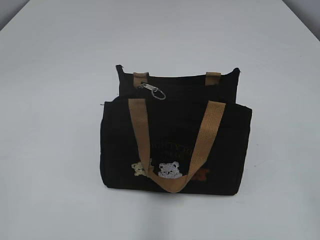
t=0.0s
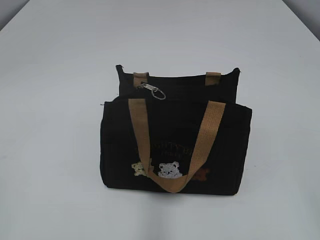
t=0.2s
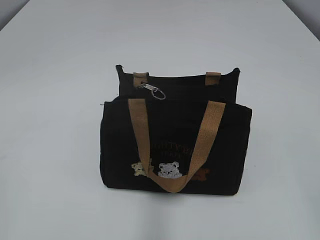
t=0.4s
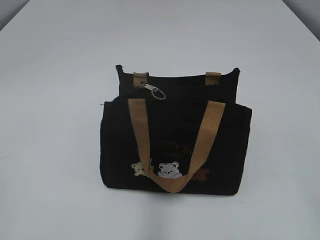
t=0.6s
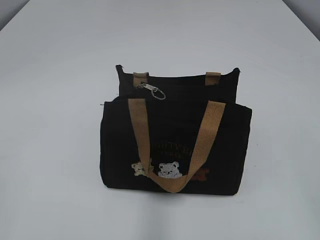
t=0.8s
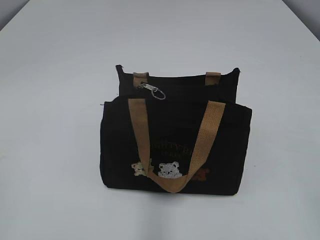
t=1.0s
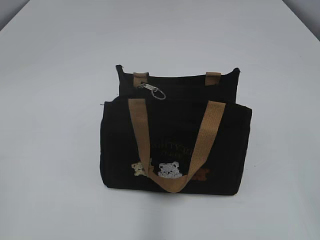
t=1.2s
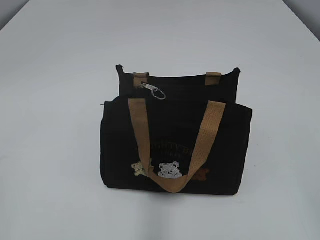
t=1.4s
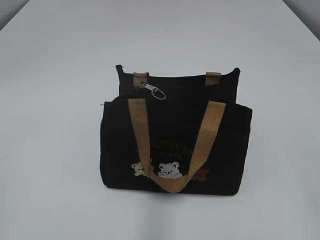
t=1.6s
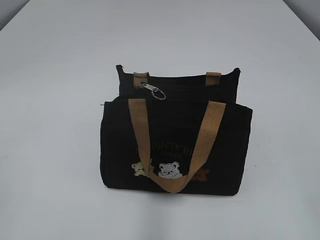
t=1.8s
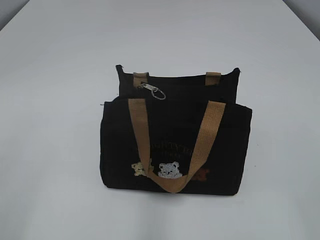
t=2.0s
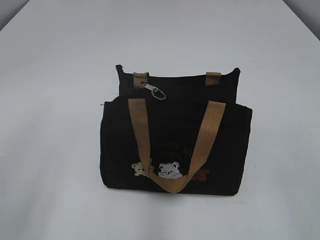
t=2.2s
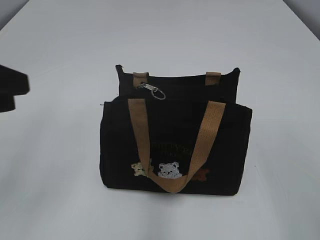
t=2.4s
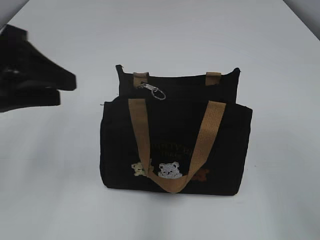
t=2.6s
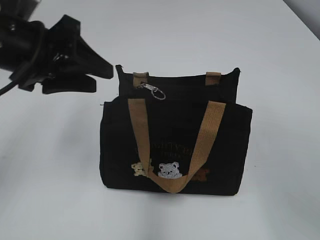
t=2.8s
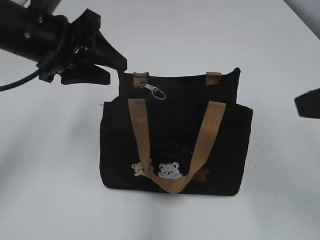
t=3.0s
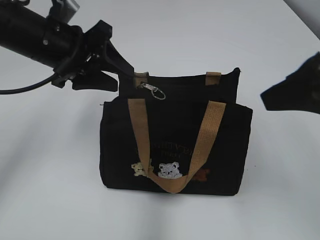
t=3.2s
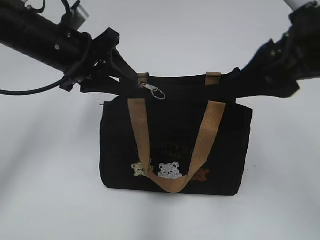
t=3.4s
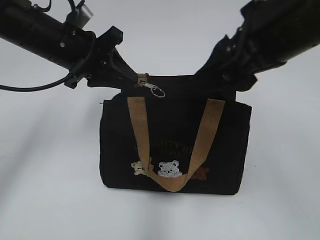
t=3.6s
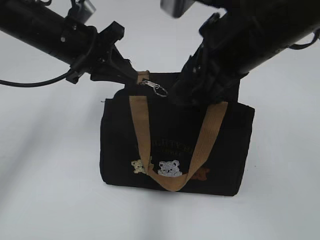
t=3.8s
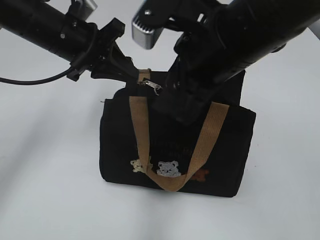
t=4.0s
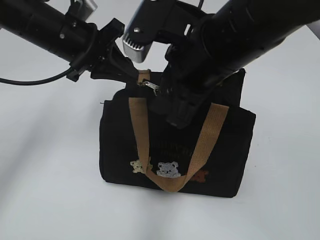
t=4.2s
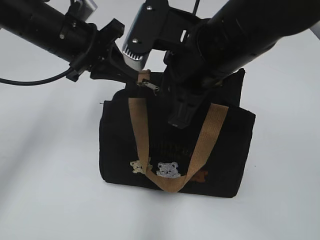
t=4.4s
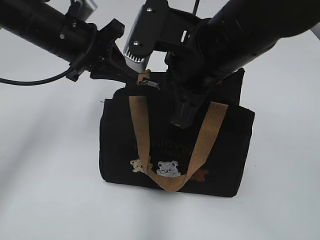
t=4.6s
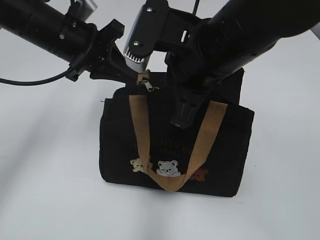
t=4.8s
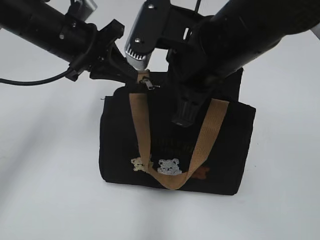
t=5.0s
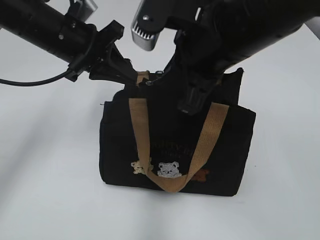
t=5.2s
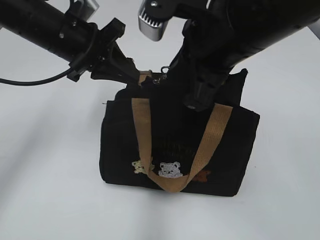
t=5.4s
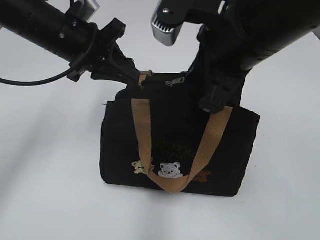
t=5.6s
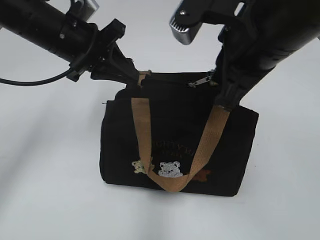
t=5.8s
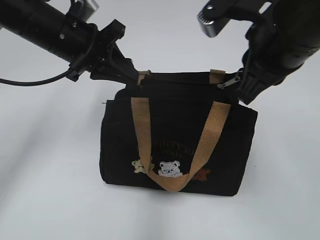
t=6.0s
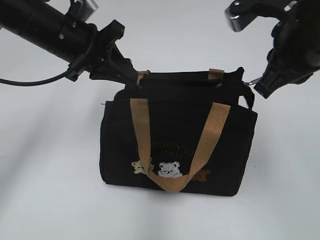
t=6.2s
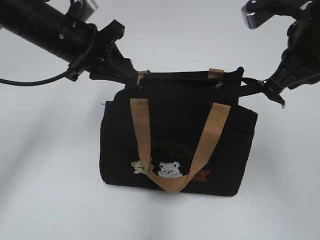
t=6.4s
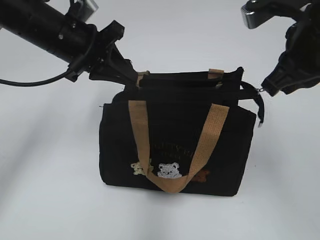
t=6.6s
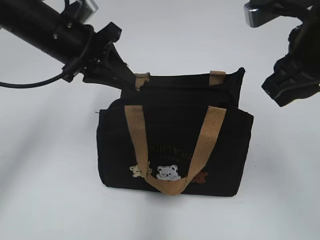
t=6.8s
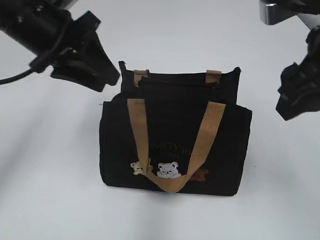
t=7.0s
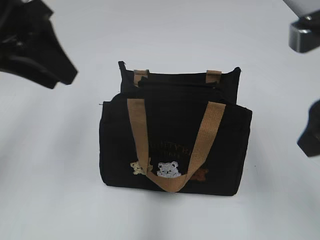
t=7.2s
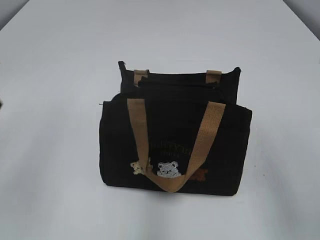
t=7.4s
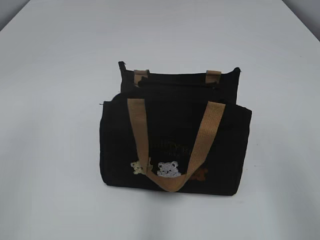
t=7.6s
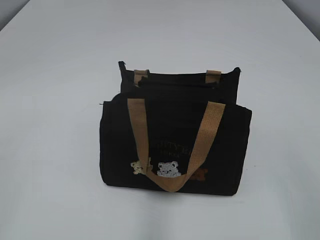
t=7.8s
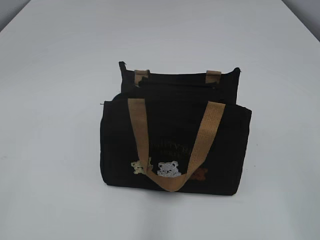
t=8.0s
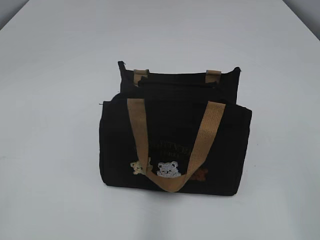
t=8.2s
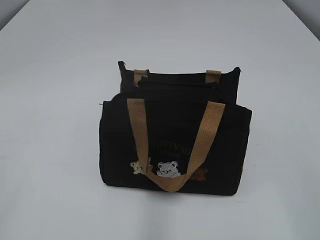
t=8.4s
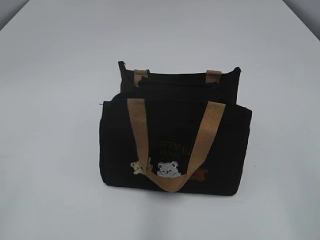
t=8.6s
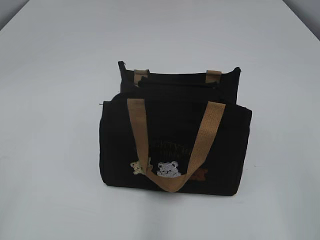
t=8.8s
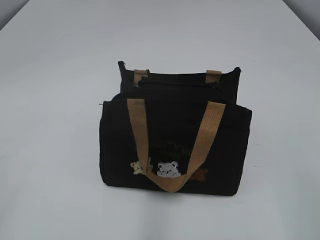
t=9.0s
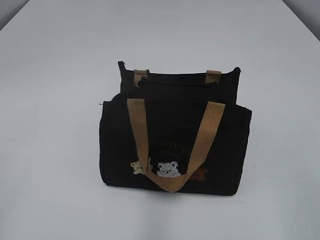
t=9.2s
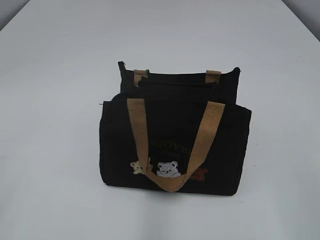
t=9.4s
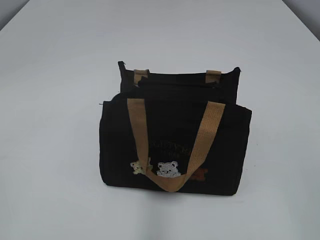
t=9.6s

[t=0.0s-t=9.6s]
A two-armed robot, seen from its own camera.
Step, t=0.0s to t=6.8s: Pull open the zipper with your right hand.
t=1.6s to t=3.2s: The right gripper goes some 20 cm forward. The left gripper heads forward and to the right, covering some 35 cm, and opens.
t=3.2s to t=4.8s: The right gripper is displaced to the left and forward by approximately 15 cm, and closes. The left gripper closes up.
t=4.8s to t=6.4s: The right gripper travels to the right by approximately 10 cm.
t=6.4s to t=8.0s: The left gripper heads backward and to the left, covering approximately 40 cm, and opens. Meanwhile the right gripper shifts some 25 cm backward, and opens its fingers.

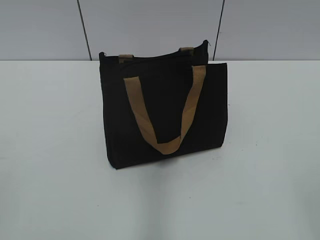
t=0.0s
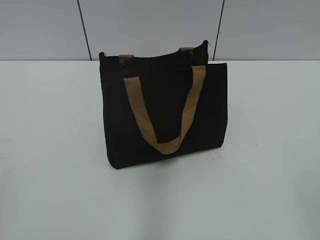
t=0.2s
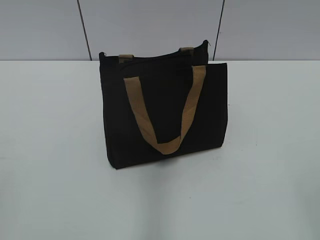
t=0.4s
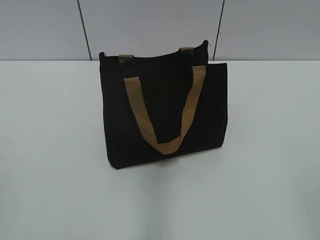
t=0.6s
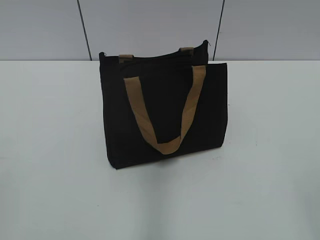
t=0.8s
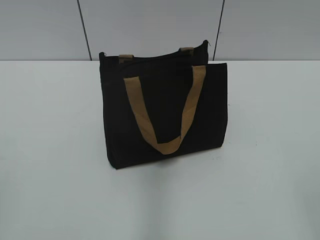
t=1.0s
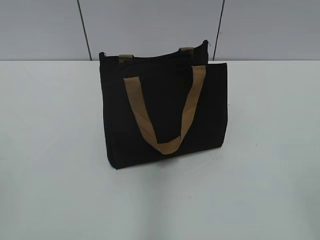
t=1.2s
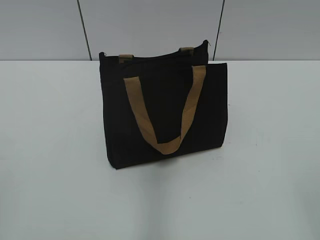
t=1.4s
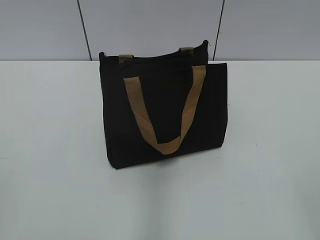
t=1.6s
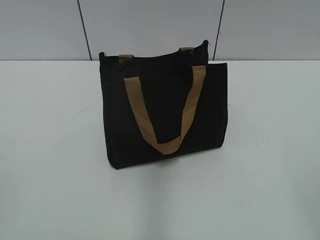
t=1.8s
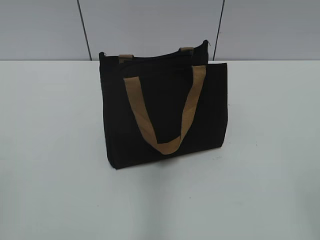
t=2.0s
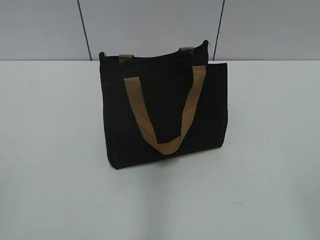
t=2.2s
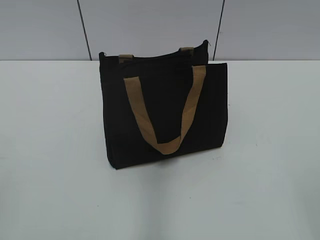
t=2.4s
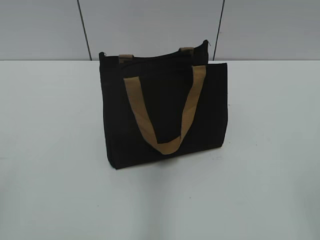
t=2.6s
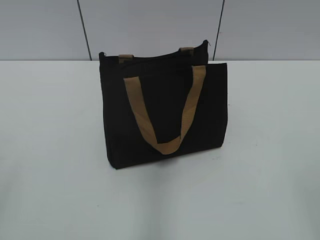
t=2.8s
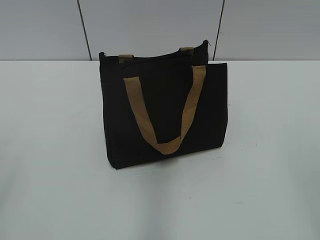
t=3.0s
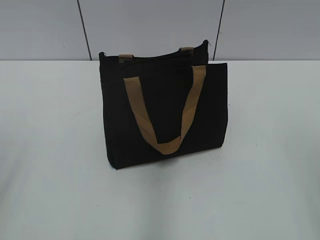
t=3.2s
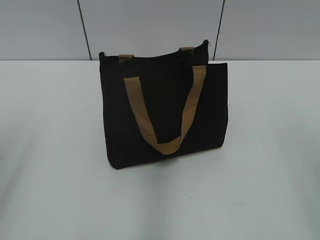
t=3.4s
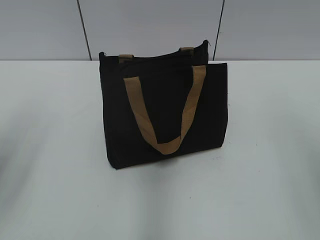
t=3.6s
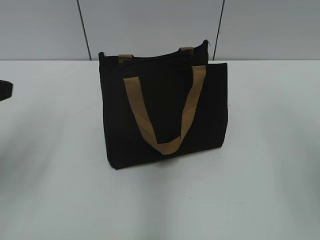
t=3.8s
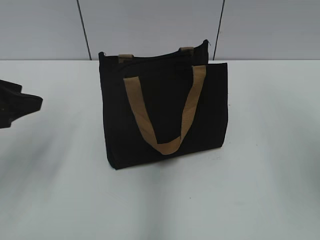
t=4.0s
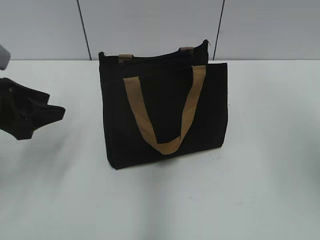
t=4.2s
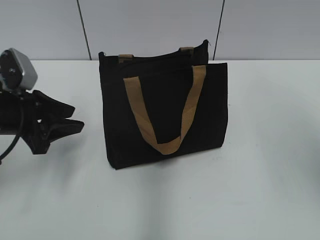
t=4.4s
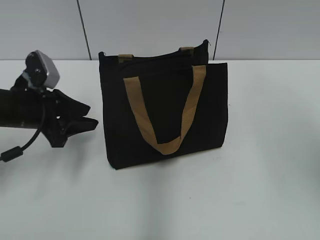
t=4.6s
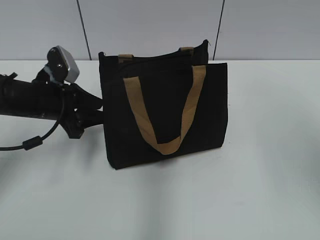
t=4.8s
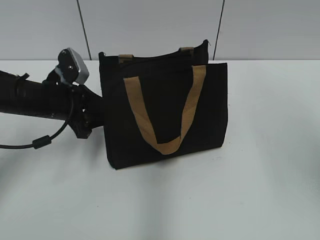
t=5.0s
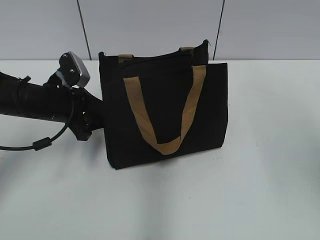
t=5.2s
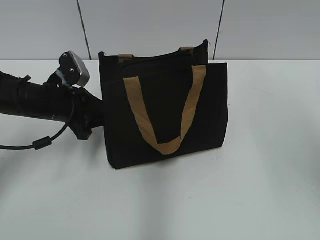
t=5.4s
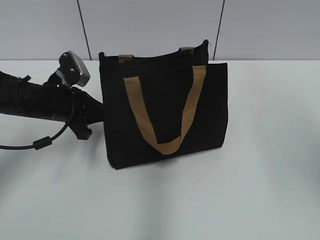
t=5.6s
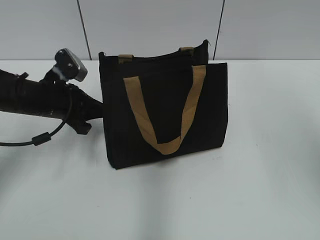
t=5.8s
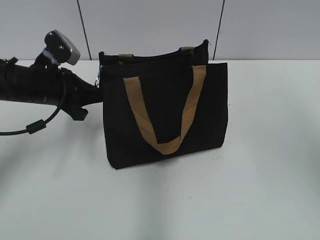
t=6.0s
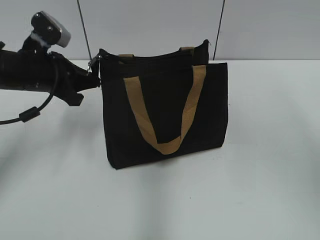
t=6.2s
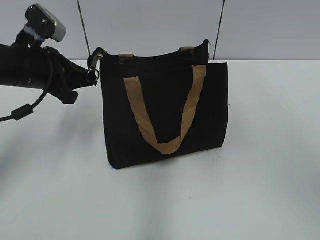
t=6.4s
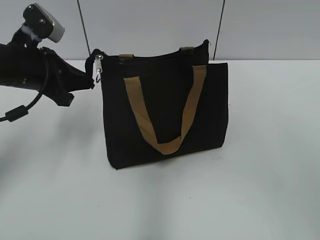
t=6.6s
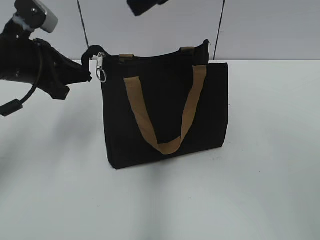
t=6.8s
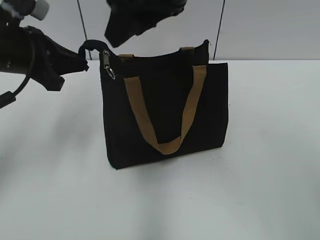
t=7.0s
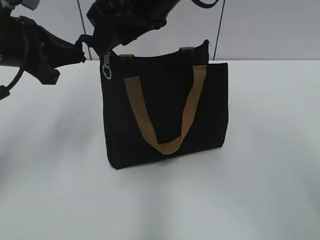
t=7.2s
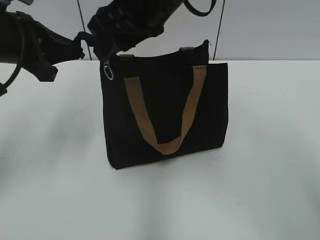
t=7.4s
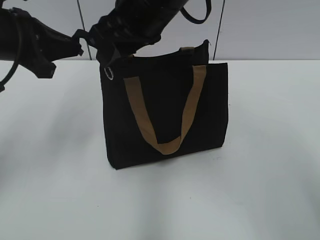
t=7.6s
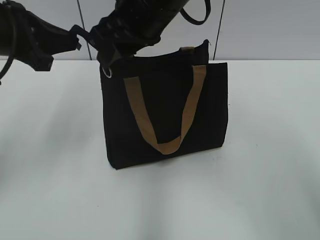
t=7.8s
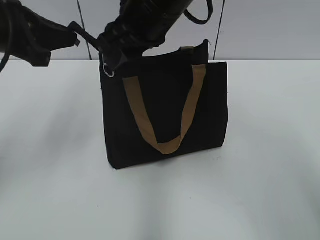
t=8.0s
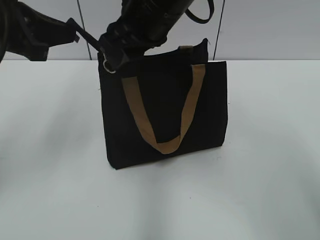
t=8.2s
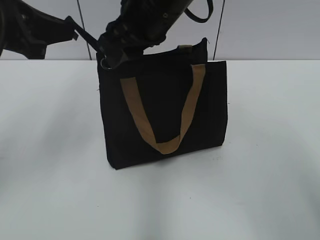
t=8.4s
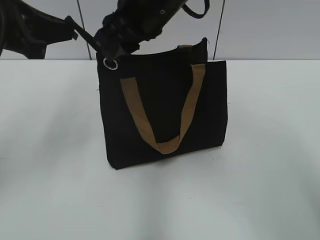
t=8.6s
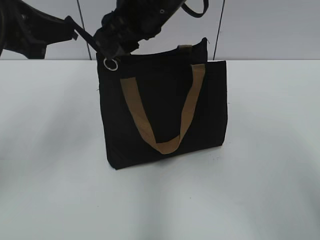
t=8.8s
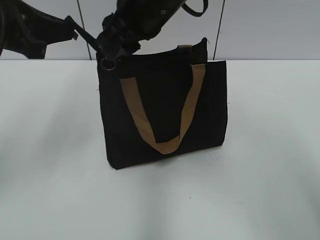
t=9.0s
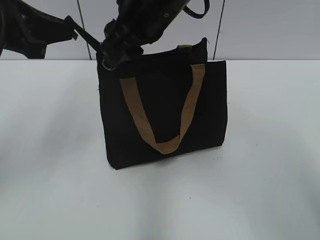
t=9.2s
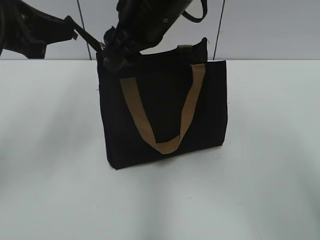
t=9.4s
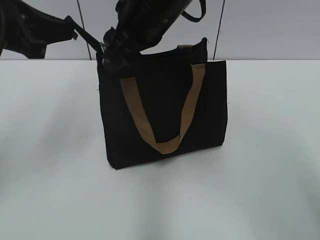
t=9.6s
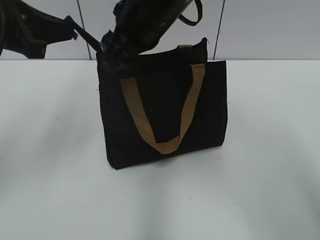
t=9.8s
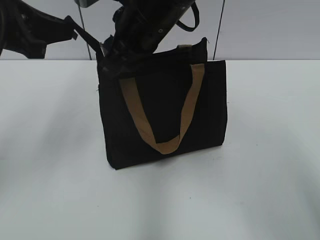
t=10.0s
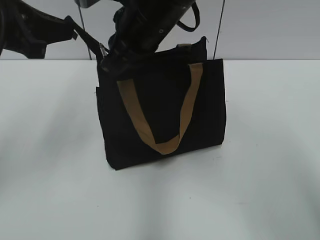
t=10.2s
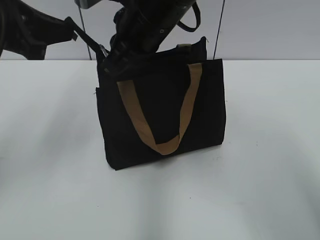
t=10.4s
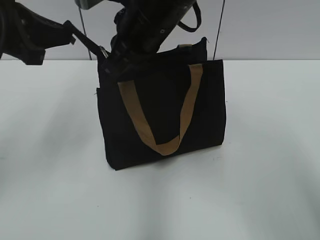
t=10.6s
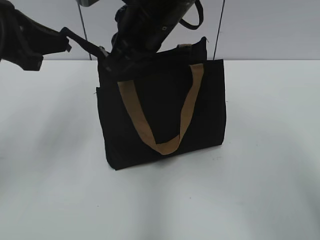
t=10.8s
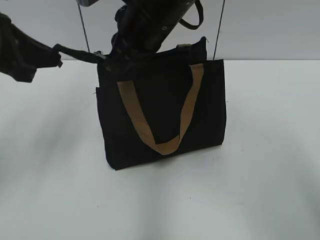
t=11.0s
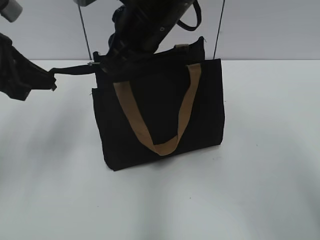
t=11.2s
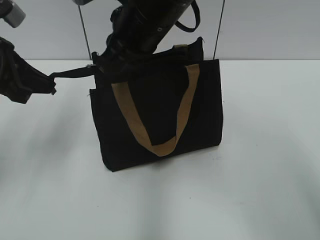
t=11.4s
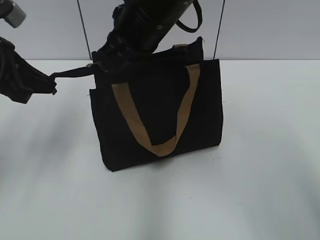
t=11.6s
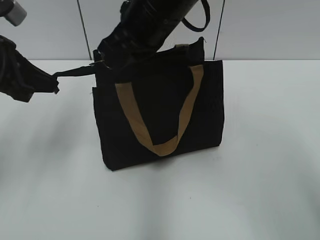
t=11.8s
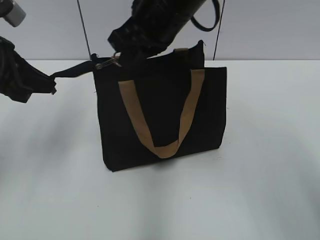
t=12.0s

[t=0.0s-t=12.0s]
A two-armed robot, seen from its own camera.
t=3.0s to t=4.4s: The left gripper is displaced forward and downward by approximately 25 cm.
t=4.4s to t=6.0s: The left gripper shifts some 10 cm forward, and closes its fingers.
t=6.0s to t=7.6s: The right gripper goes some 30 cm to the left, downward and forward; the left gripper moves upward, some 10 cm.
t=7.6s to t=9.0s: The grippers stay close to where they were, moving slightly.
t=9.0s to t=10.4s: The right gripper closes up.

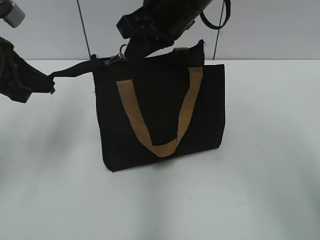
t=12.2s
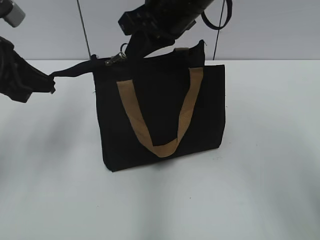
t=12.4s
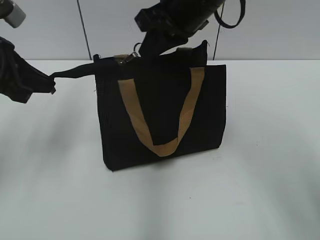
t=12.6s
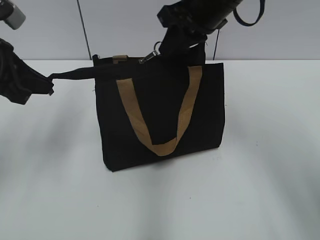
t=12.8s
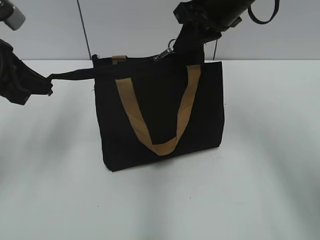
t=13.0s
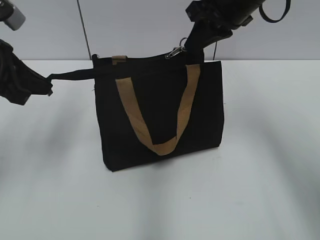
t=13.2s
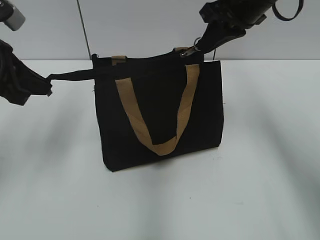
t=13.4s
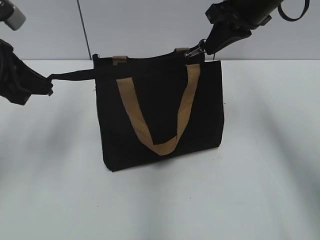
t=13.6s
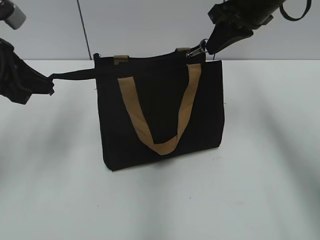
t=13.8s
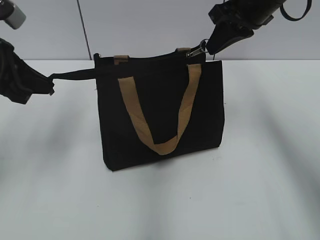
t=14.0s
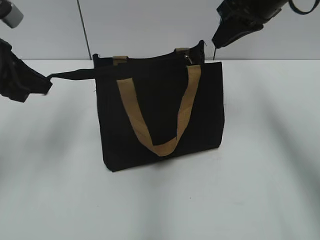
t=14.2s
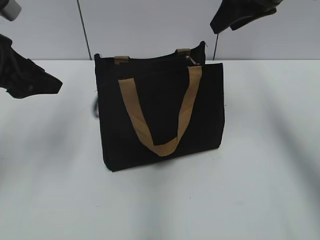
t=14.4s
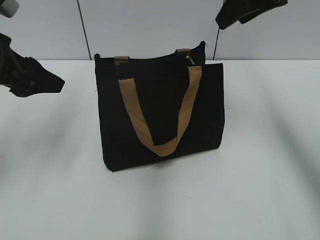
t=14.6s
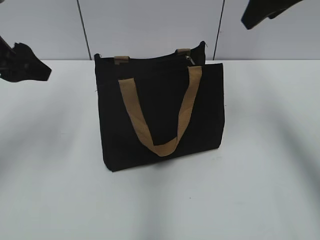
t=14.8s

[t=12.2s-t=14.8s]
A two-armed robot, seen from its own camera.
t=12.2s to t=13.4s: The right gripper goes some 10 cm to the right.
t=13.4s to t=14.8s: The right gripper is displaced upward by roughly 5 cm, and opens. Meanwhile the left gripper opens.
